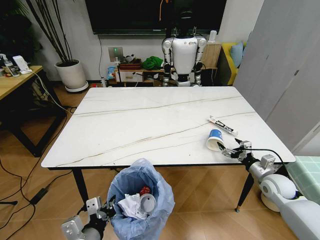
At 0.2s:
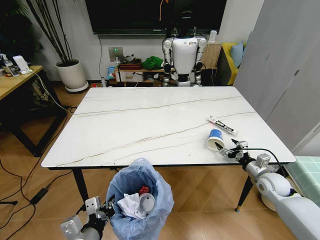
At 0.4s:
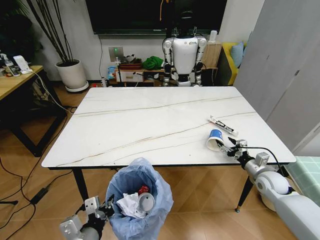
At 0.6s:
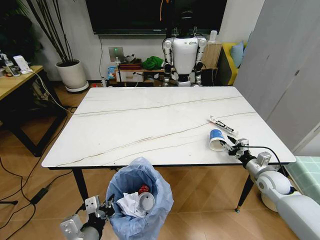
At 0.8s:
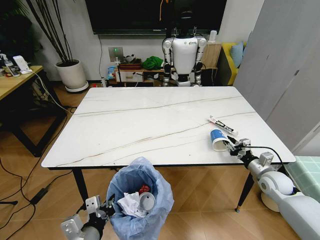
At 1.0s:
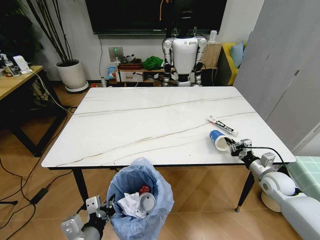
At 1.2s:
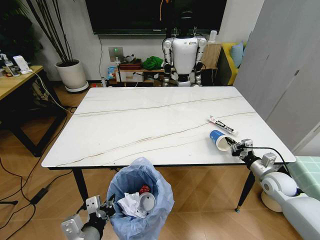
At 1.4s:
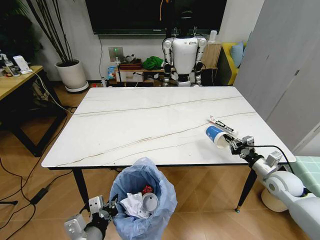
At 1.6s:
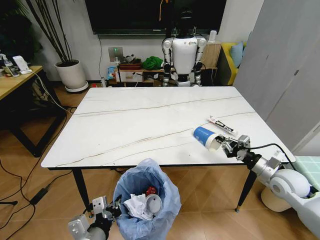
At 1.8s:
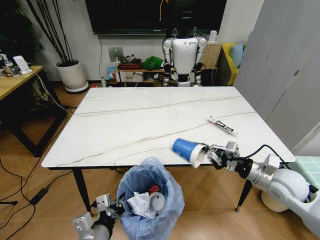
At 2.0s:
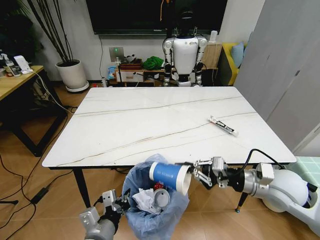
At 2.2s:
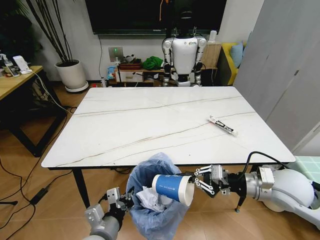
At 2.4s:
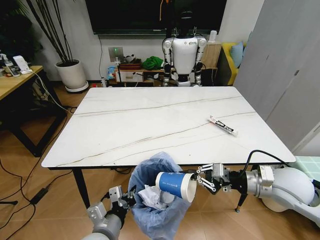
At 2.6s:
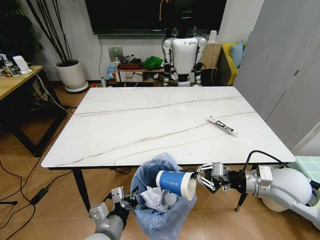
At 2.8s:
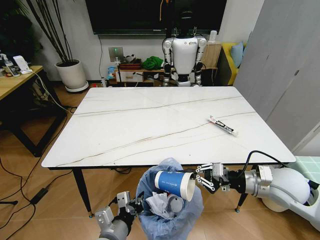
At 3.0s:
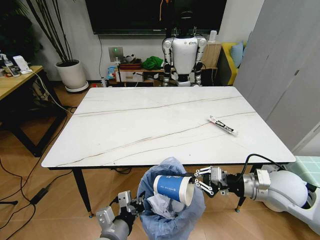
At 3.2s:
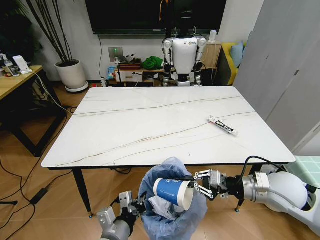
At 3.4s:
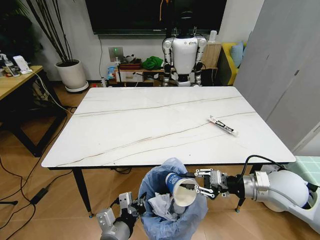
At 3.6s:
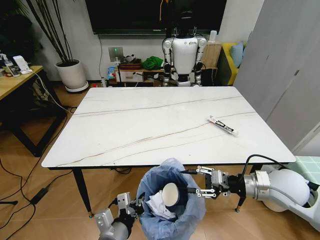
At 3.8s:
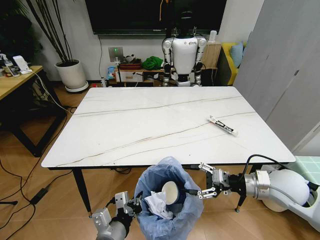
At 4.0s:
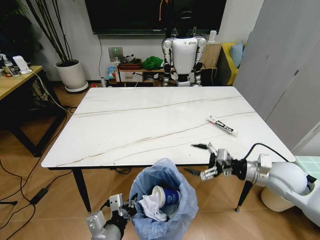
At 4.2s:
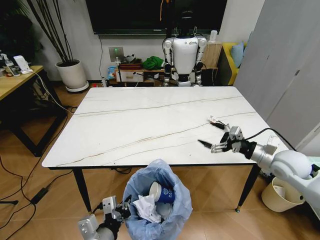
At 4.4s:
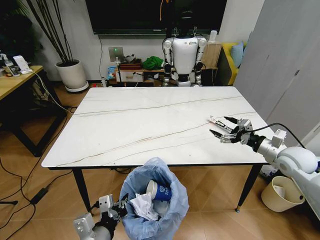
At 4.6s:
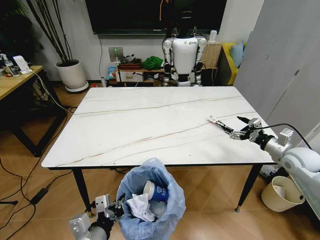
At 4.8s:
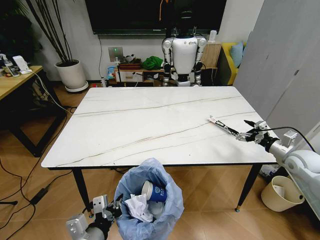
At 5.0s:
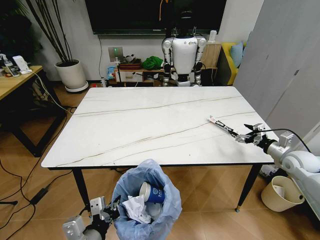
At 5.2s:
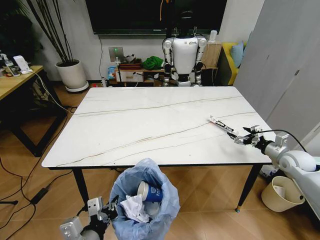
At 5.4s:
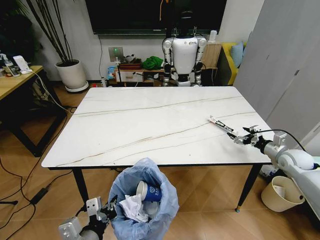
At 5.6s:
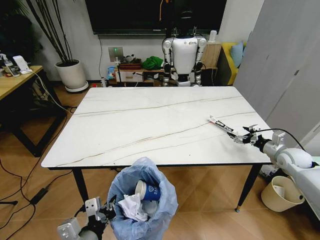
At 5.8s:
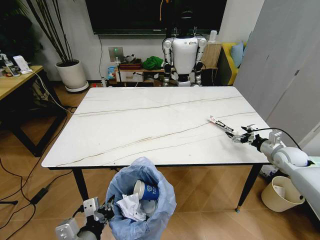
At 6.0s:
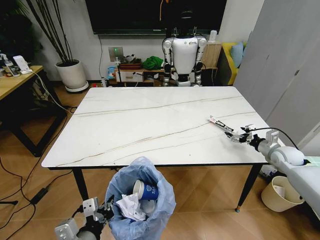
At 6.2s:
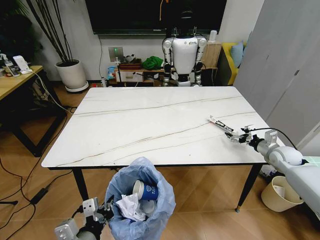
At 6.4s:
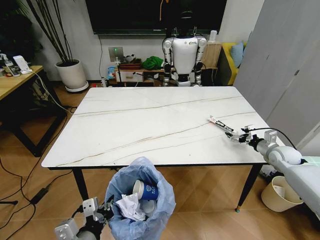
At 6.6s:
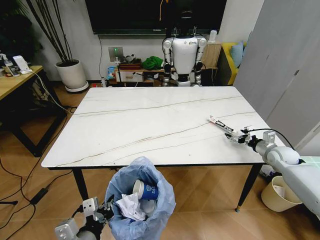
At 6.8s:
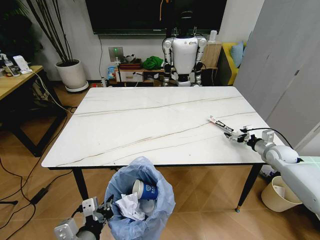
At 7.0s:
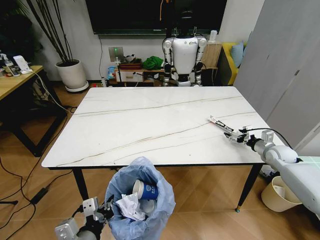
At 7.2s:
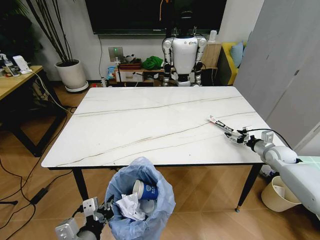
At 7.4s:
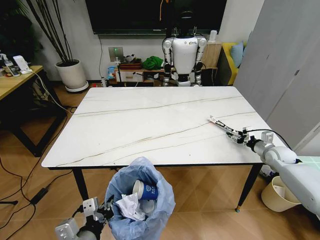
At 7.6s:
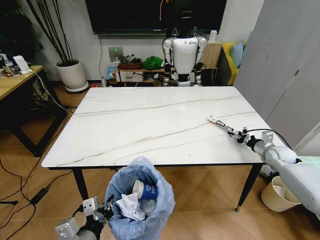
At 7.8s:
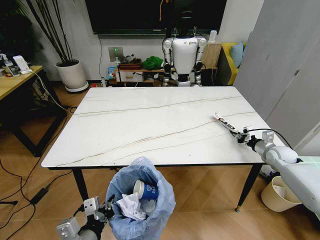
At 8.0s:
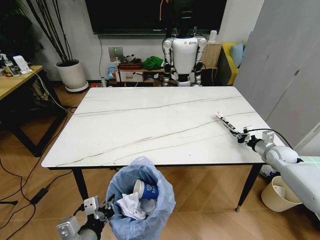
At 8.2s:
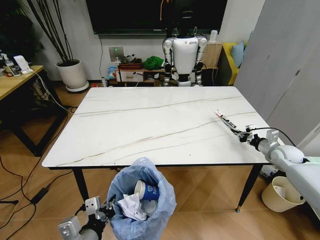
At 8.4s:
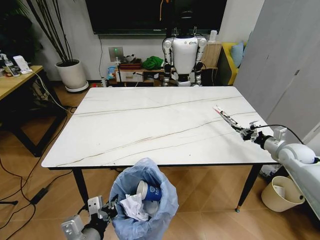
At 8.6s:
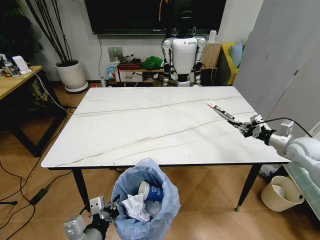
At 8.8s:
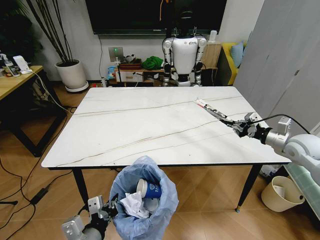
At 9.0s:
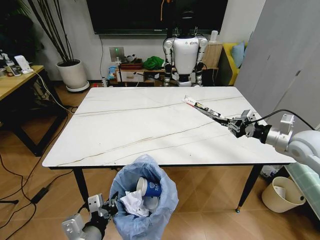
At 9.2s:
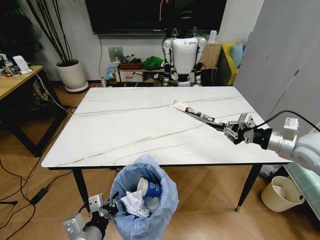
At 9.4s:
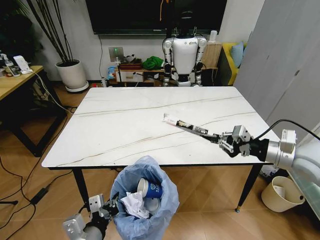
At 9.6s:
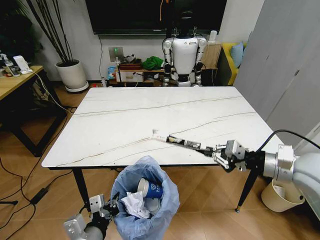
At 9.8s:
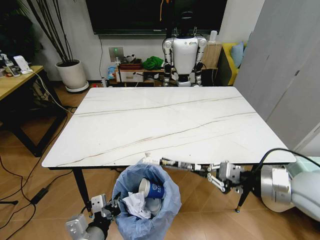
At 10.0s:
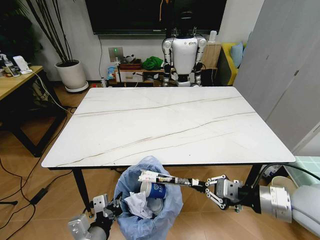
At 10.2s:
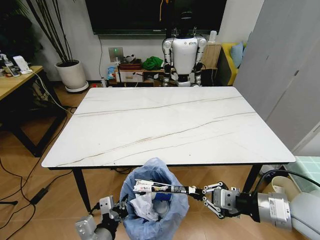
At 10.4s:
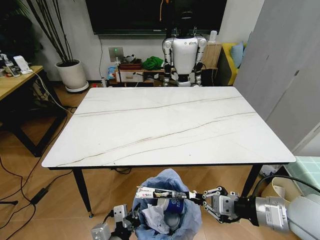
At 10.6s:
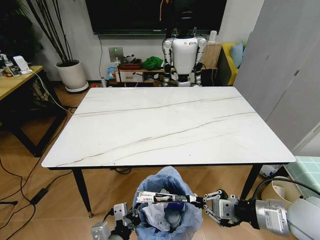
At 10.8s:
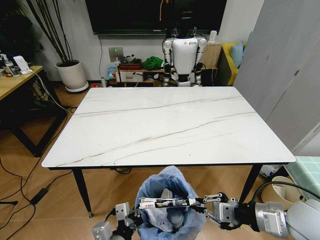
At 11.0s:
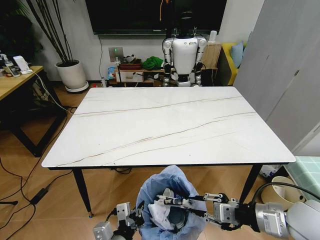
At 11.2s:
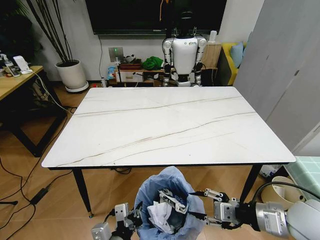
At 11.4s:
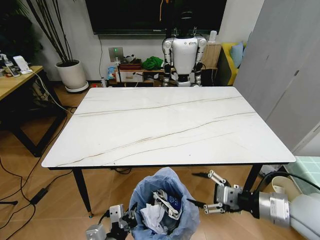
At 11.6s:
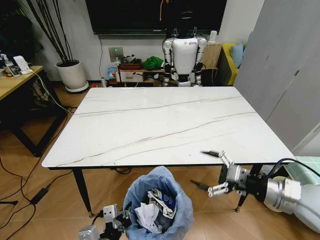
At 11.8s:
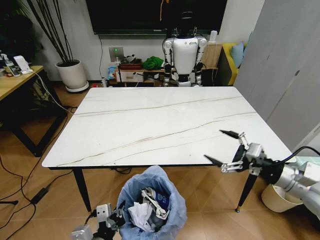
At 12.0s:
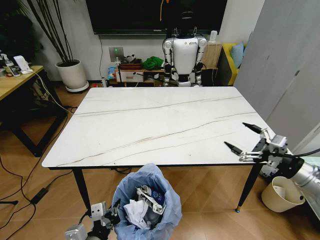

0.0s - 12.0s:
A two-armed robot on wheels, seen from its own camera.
Task of the whole recording: Pick up the trash bin and place the trash from the table into it.
0.0s - 1.6s: The right gripper heads upward, covering approximately 5 cm, and closes up.
1.6s - 3.0s: The left gripper heads to the right, covering approximately 5 cm. Meanwhile the right gripper heads to the left and upward, covering about 10 cm.
3.0s - 4.4s: The right gripper goes approximately 15 cm to the right and forward, and opens, while the left gripper changes place by roughly 5 cm.
4.4s - 6.0s: The right gripper travels downward, forward and to the right by approximately 10 cm.
6.0s - 7.6s: The right gripper closes.
7.6s - 9.0s: The right gripper travels upward and backward by approximately 20 cm.
9.0s - 10.4s: The left gripper changes place by approximately 5 cm; the right gripper moves backward and to the left, approximately 25 cm.
10.4s - 12.0s: The right gripper is displaced to the right by some 15 cm, and opens.

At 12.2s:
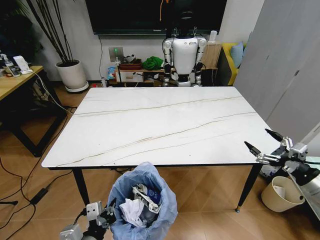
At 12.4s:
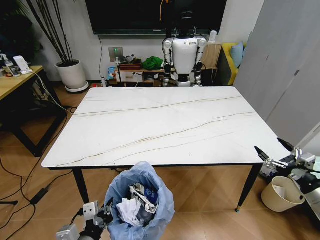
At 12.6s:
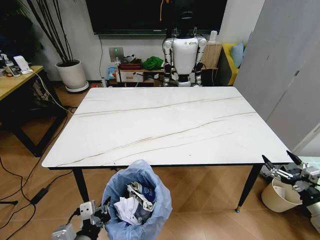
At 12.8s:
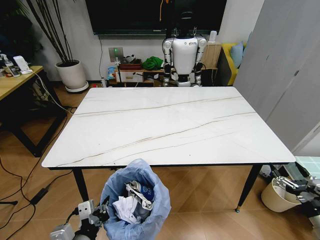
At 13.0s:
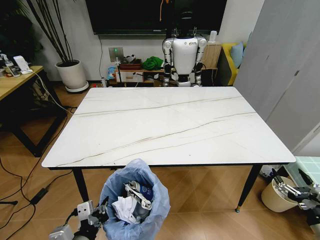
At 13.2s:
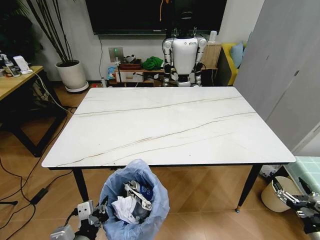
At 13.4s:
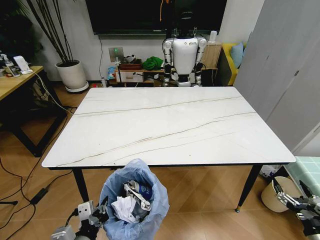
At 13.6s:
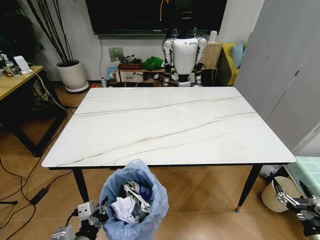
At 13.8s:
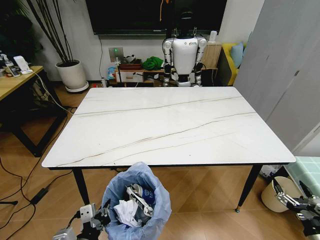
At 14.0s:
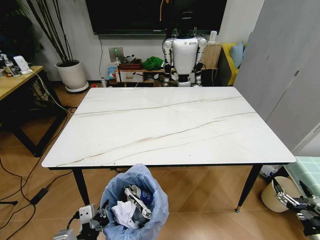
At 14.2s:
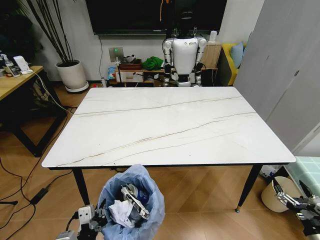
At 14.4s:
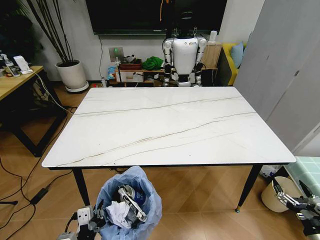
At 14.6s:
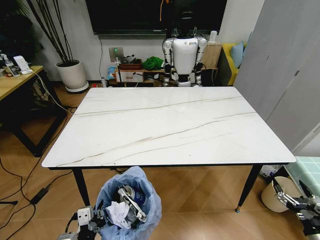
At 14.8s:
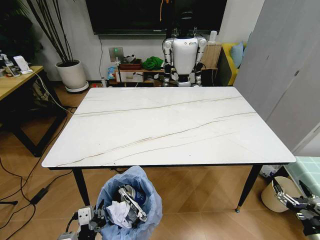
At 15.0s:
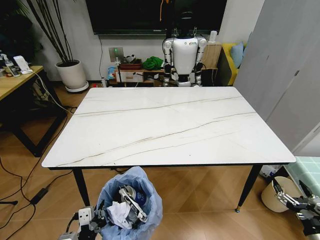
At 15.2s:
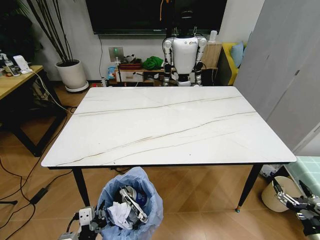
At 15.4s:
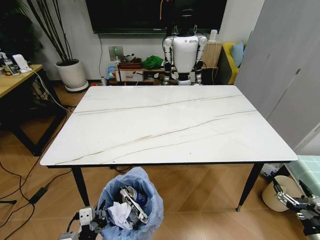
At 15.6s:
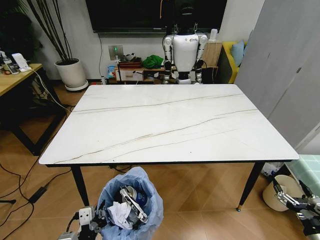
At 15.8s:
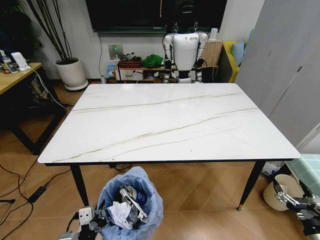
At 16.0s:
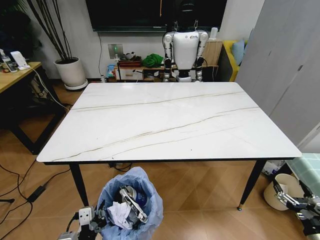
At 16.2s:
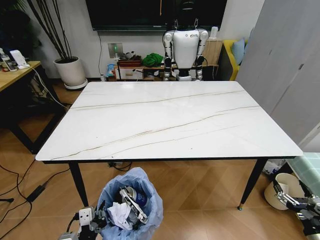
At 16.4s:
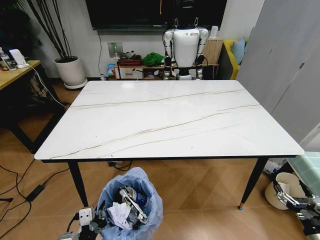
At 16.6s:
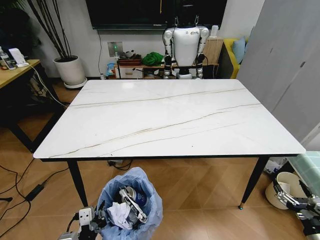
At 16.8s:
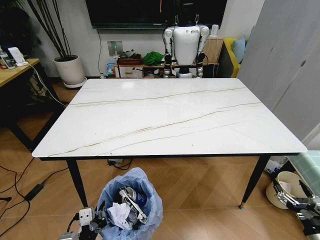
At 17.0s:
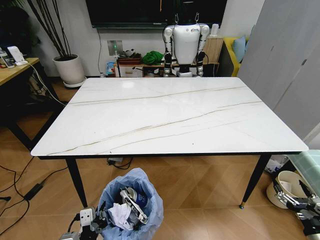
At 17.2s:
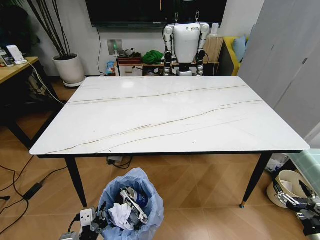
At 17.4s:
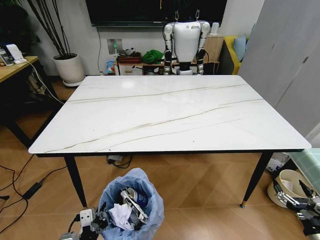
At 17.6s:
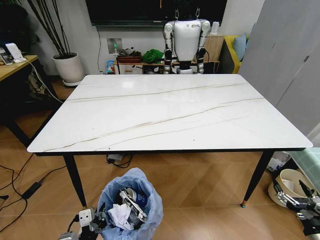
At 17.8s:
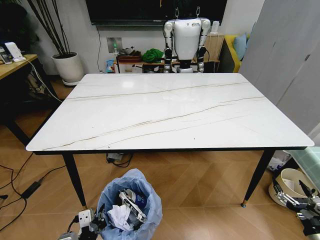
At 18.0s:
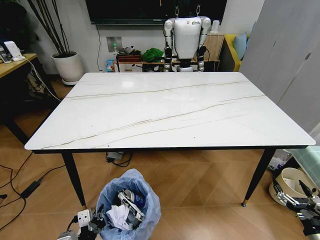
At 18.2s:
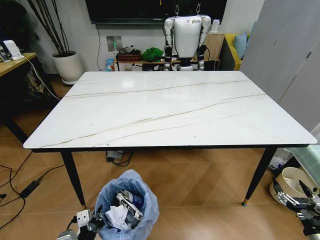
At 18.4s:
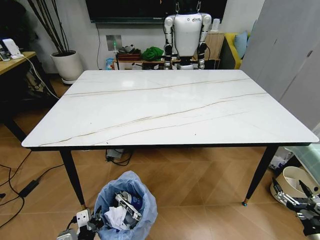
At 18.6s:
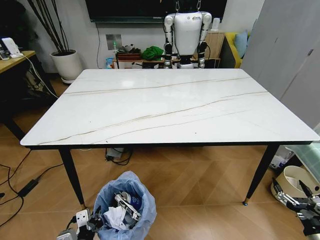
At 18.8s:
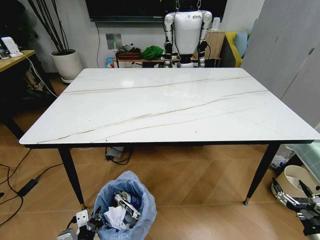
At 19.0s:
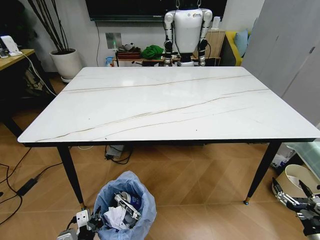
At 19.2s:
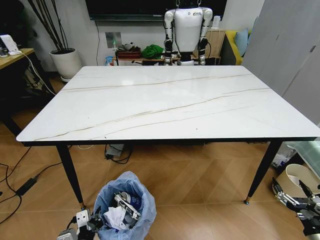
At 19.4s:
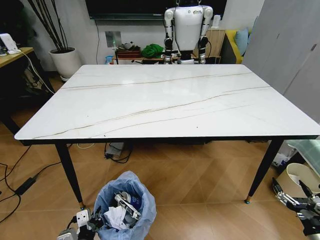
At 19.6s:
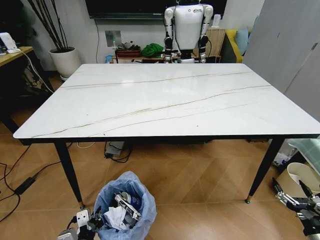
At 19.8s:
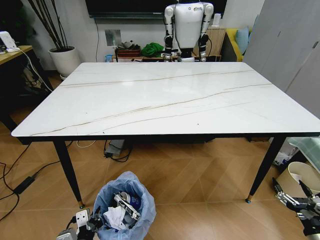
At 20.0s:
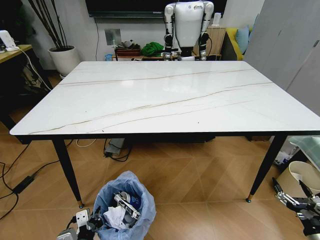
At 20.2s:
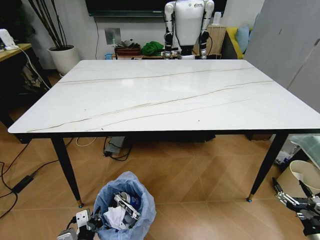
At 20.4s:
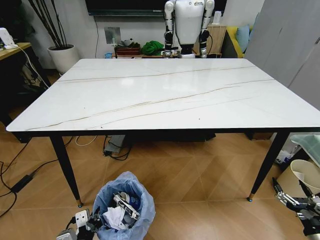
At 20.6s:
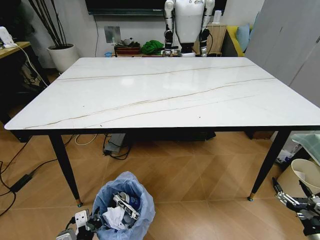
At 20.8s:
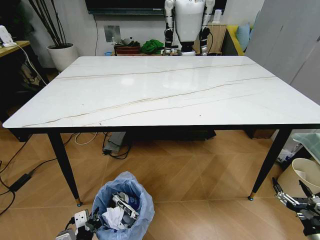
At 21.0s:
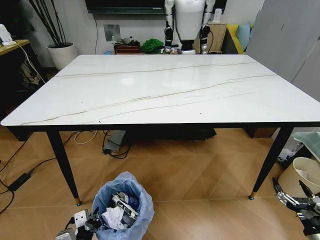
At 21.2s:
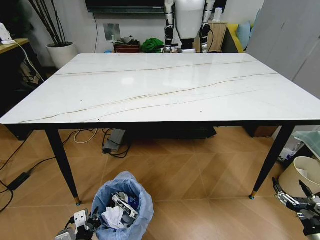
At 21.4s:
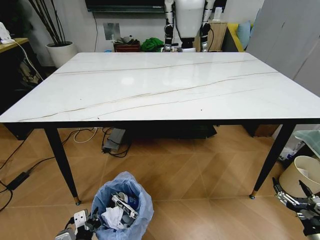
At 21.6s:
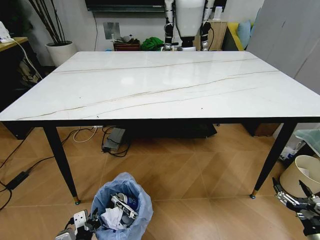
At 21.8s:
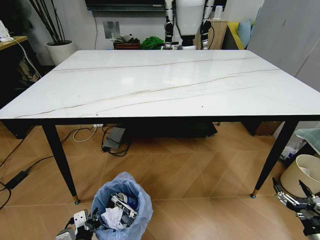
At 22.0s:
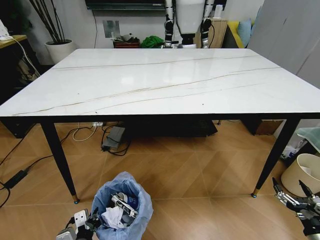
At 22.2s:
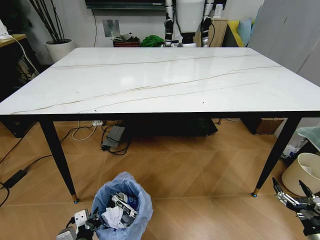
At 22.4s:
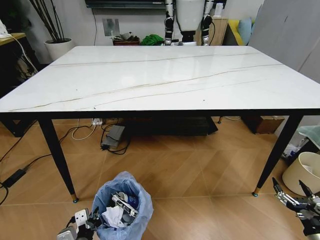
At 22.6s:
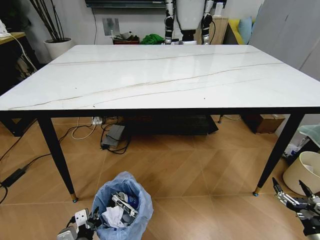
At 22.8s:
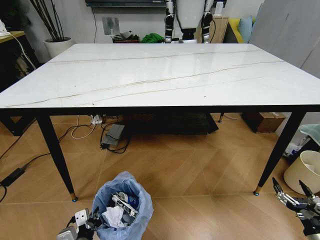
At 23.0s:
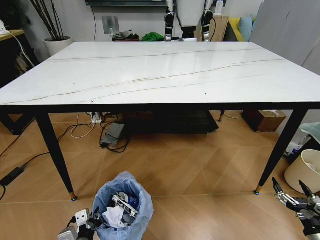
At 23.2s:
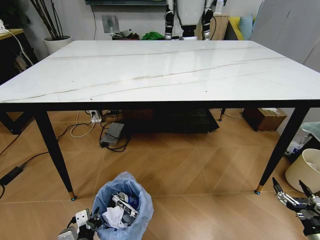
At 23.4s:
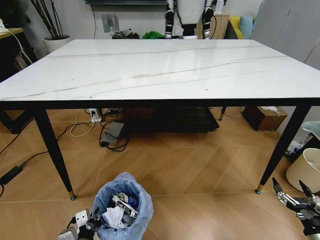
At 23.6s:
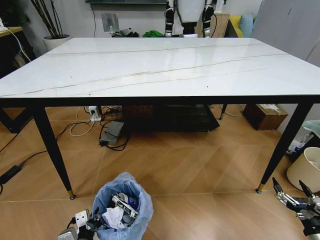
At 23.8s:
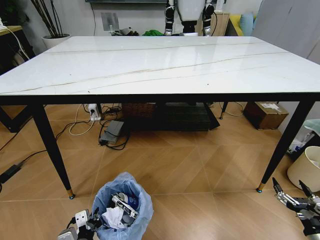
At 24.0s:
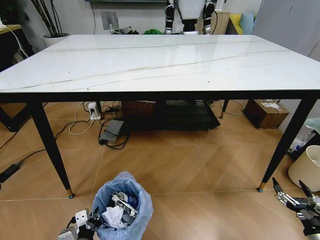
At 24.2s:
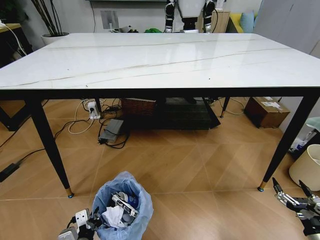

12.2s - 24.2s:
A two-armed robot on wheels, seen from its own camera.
Task of the whole recording: Pick up the trash bin and place the trash from the table into it.
12.2s - 13.8s: The right gripper travels downward and backward by roughly 20 cm.
13.8s - 15.2s: There are only small adjustments of the grippers.
